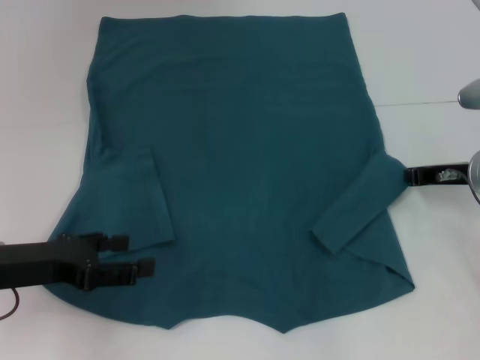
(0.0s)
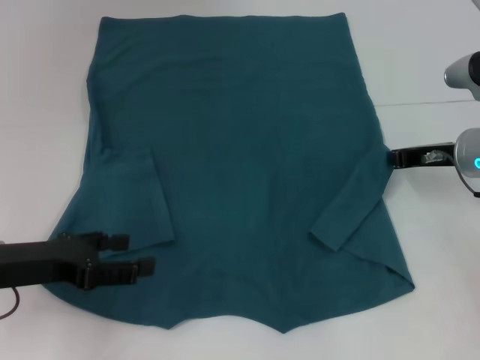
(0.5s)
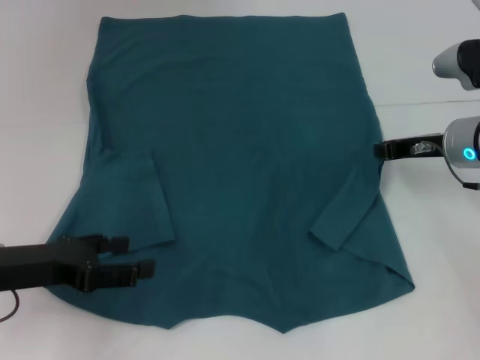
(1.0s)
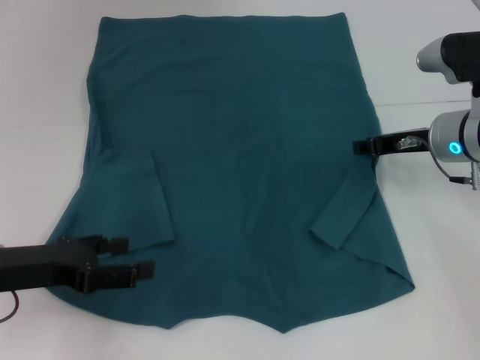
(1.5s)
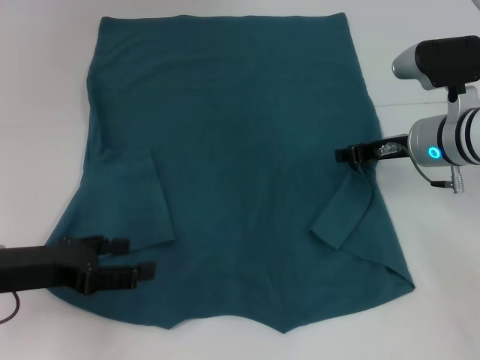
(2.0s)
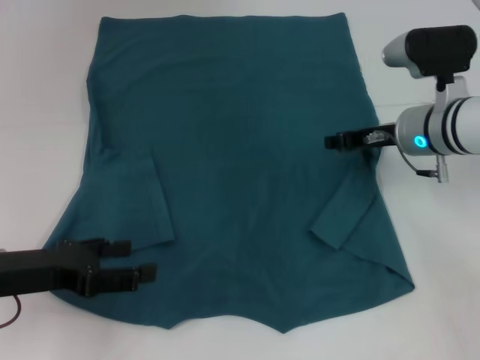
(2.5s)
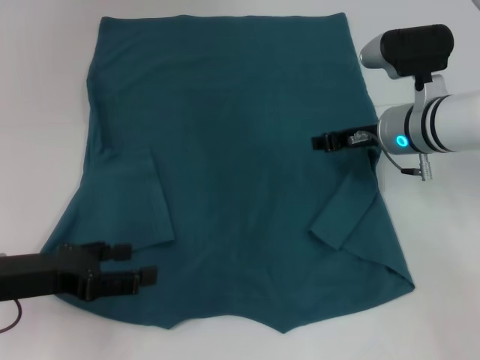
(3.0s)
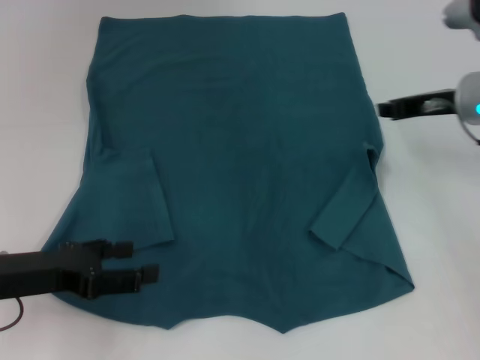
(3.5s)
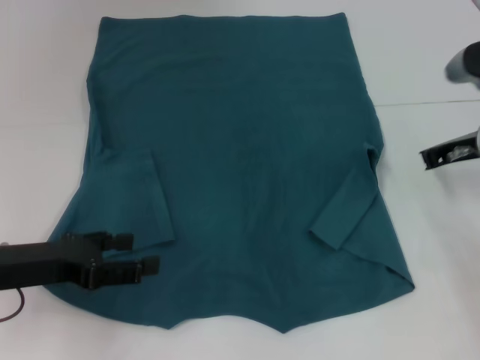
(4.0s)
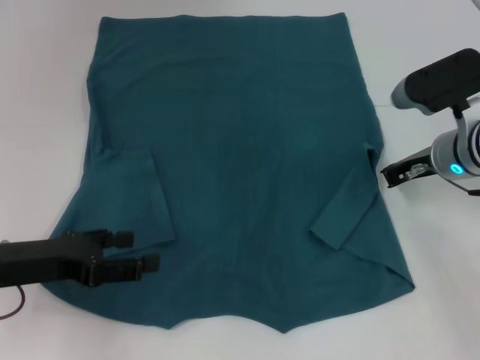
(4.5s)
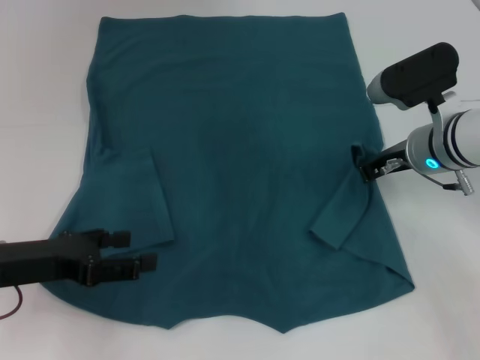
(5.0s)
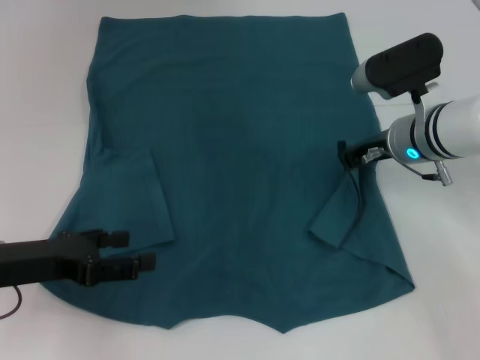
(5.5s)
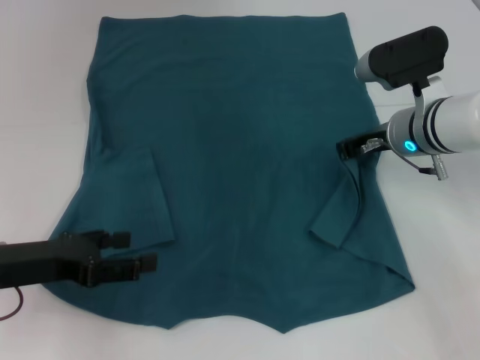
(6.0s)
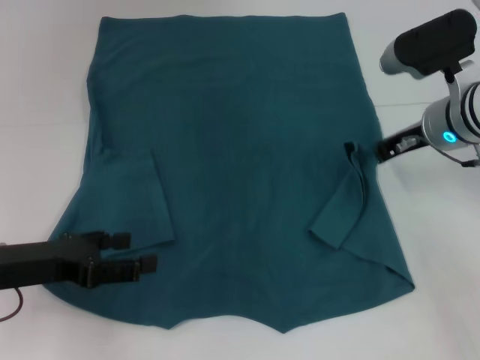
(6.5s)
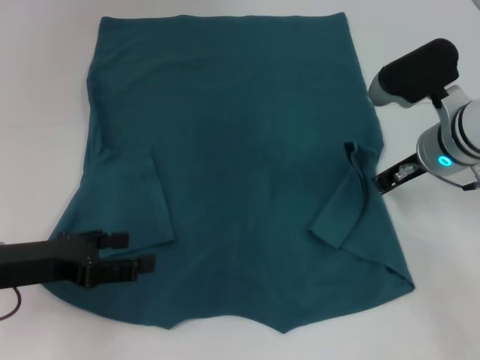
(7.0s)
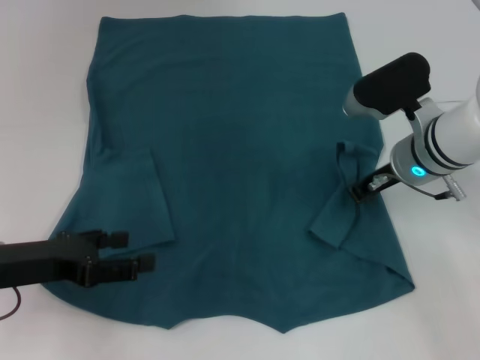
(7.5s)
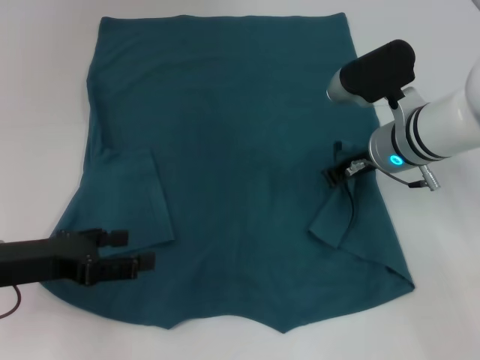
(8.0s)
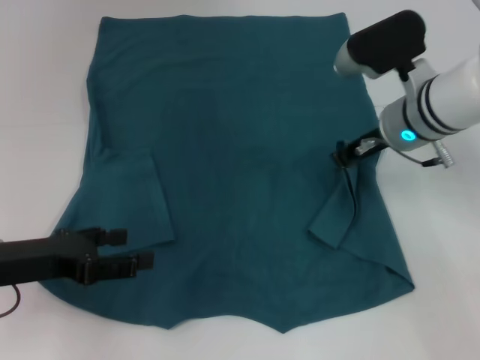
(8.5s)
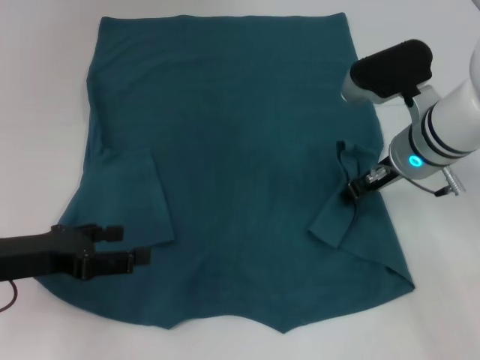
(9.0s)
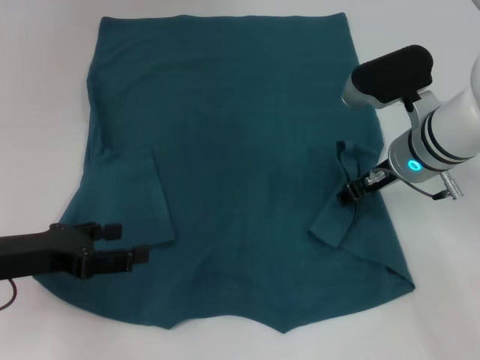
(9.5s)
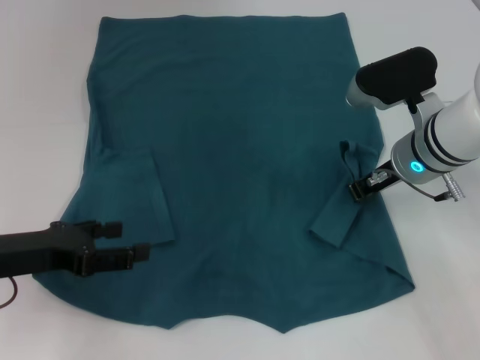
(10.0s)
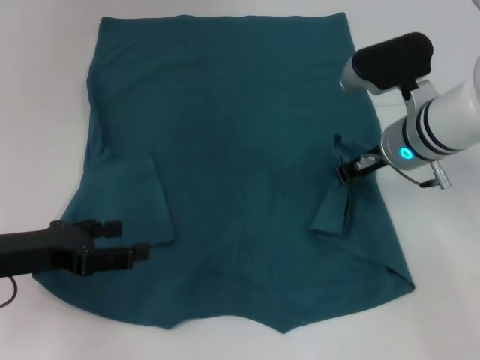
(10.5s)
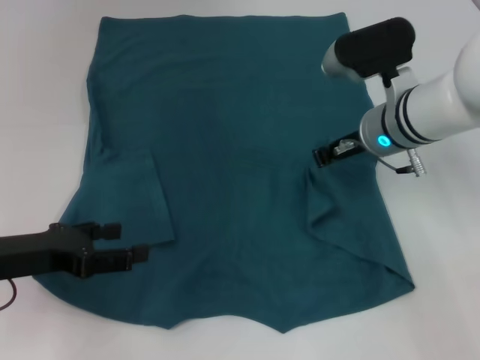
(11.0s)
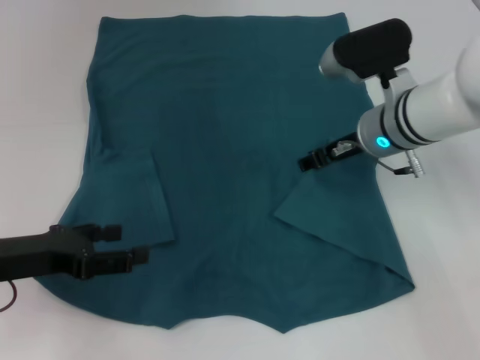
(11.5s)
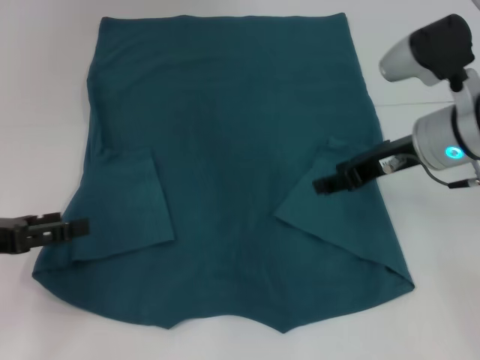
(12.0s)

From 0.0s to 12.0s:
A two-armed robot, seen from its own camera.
Step, from 0.0s to 11.5s: Fold the bottom right sleeve to the right.
From 0.0s to 2.0s: The right gripper is displaced to the left by about 5 cm, and opens.
From 2.0s to 4.0s: The right gripper is displaced to the right by approximately 5 cm.
From 4.0s to 6.0s: The right gripper goes about 10 cm to the left.
From 6.0s to 8.0s: There are only small adjustments of the grippers.
From 8.0s to 10.0s: The right gripper opens and closes again.
From 10.0s to 12.0s: The right gripper ends up about 5 cm from where it was, and opens, while the left gripper travels to the left by approximately 5 cm.

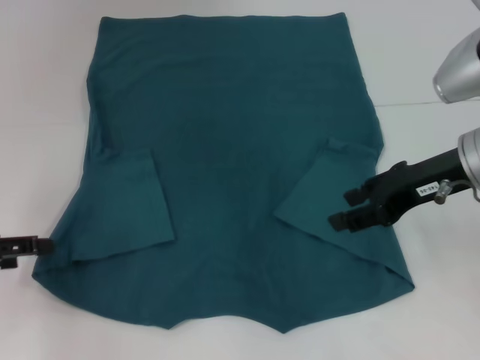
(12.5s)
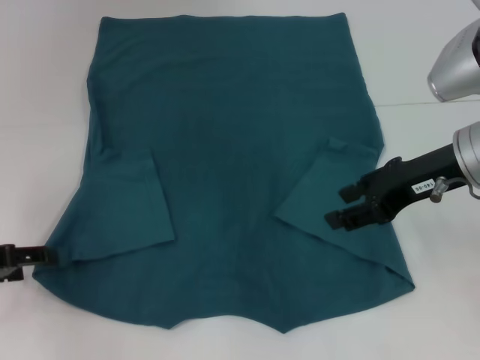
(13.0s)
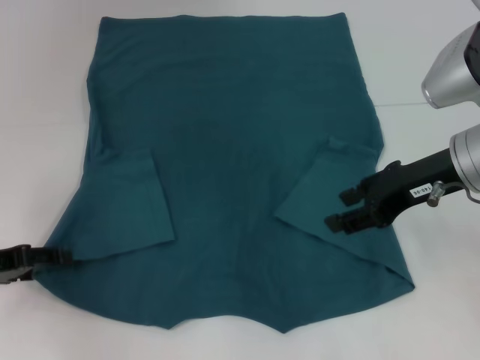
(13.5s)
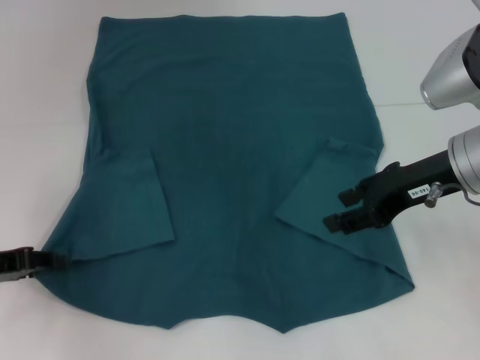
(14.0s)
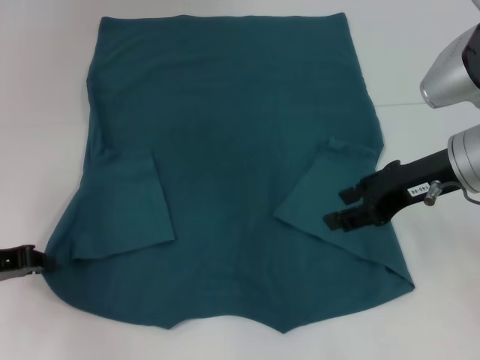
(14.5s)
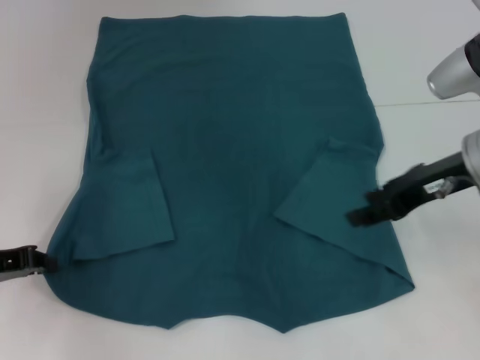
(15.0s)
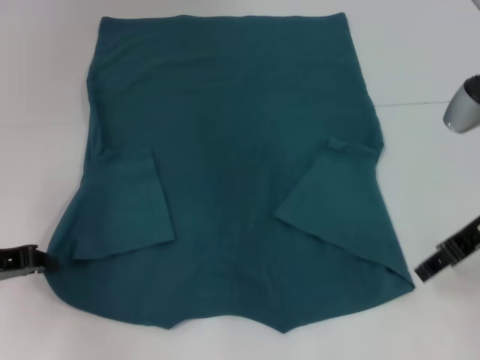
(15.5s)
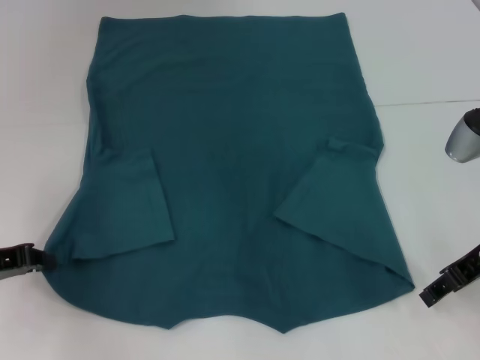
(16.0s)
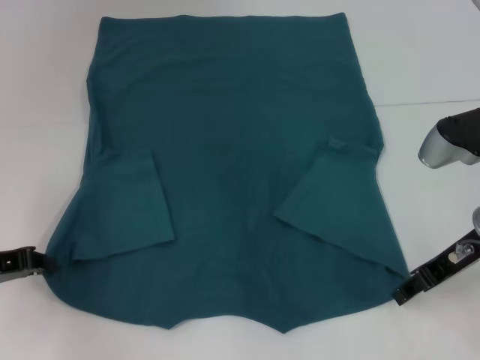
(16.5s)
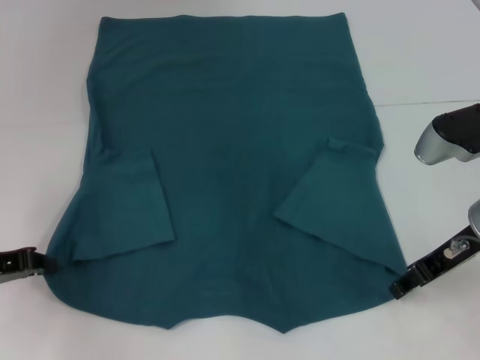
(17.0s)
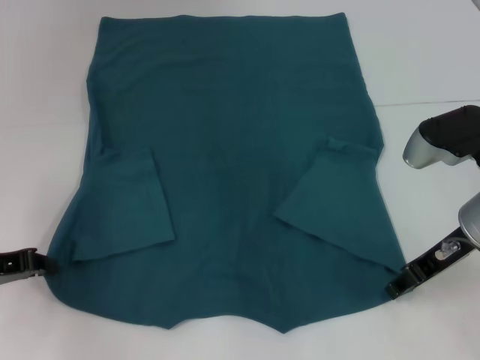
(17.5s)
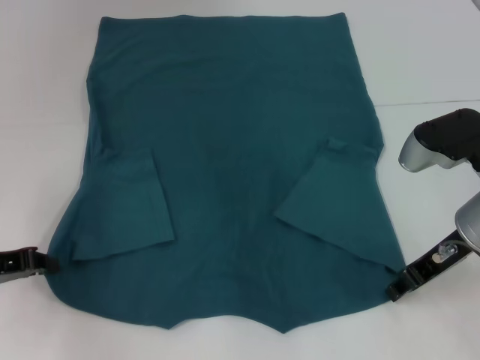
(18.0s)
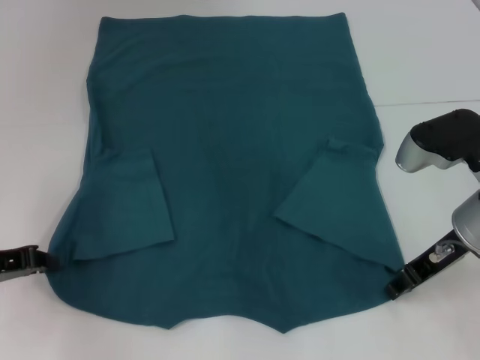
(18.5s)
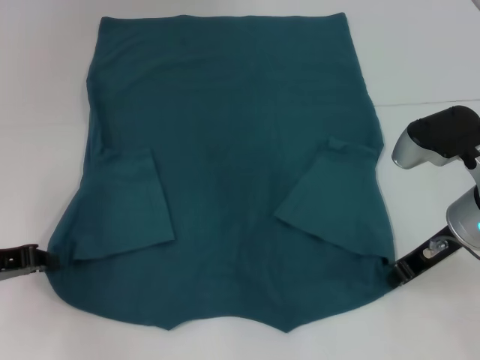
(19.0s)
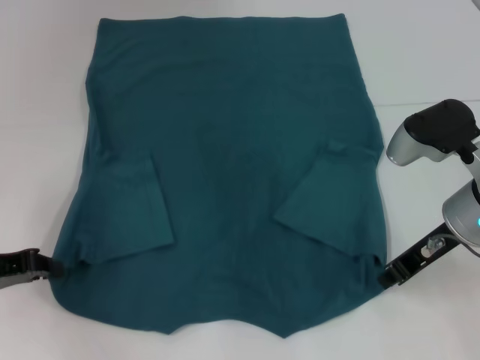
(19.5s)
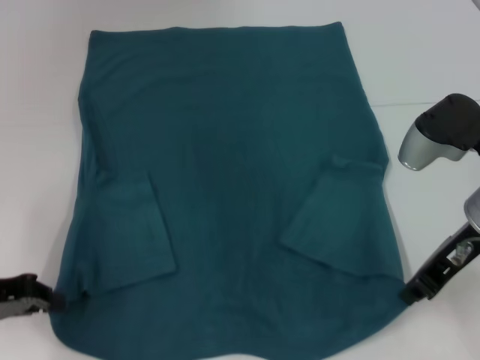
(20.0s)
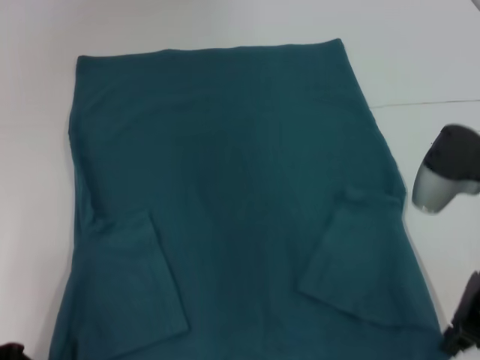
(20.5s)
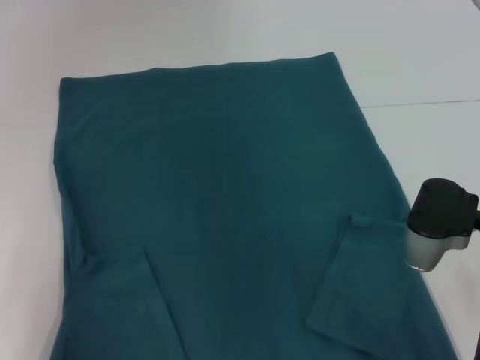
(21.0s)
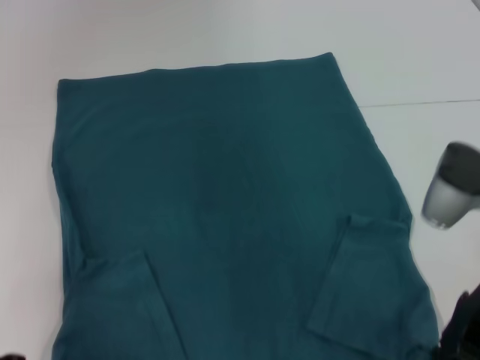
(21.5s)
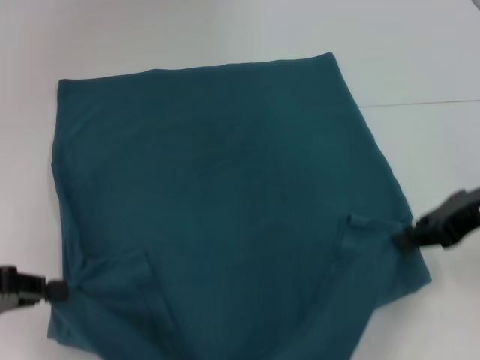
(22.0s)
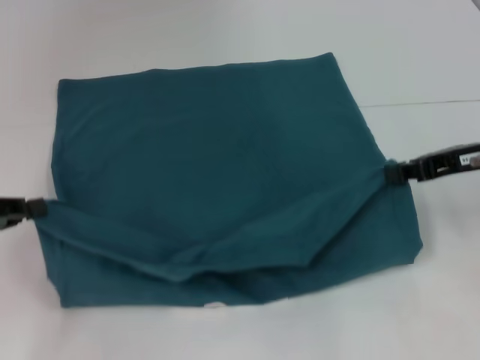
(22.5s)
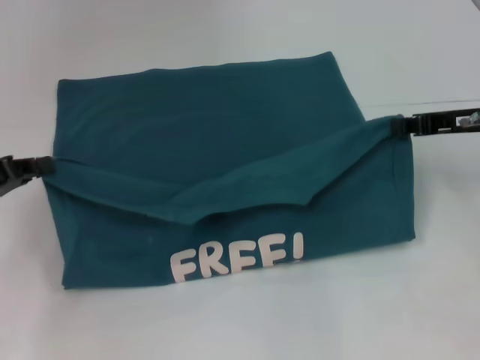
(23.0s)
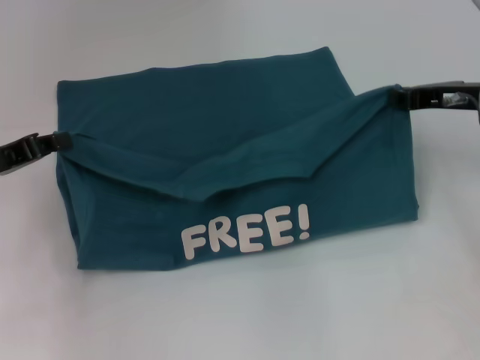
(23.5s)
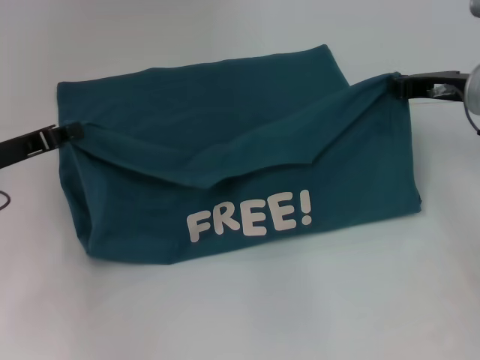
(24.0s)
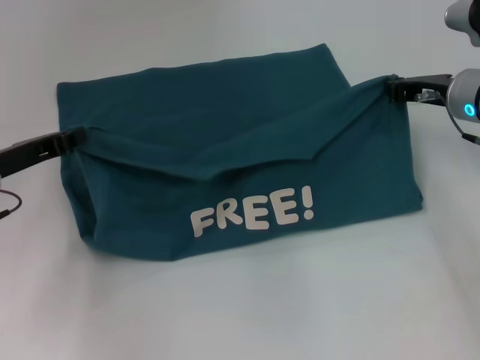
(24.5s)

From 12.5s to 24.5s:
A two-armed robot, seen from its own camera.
Step, from 12.5s to 14.5s: Grab the bottom left corner with your left hand.
Step, from 15.0s to 19.0s: Grab the bottom right corner with your right hand.
From 12.5s to 14.5s: The left gripper closes its fingers.
From 14.5s to 16.5s: The right gripper ends up approximately 5 cm from where it was.
From 16.5s to 18.5s: The grippers make only small movements.
From 18.5s to 20.5s: The right gripper shifts by some 5 cm, and closes up, while the left gripper heads backward, covering some 5 cm.
From 20.5s to 22.5s: The right gripper heads to the right, covering some 5 cm. Meanwhile the left gripper changes place by some 5 cm.
From 22.5s to 24.5s: The left gripper moves forward and to the right, about 10 cm. The right gripper heads forward, covering roughly 10 cm.

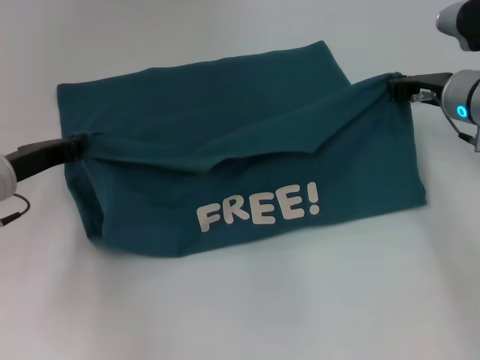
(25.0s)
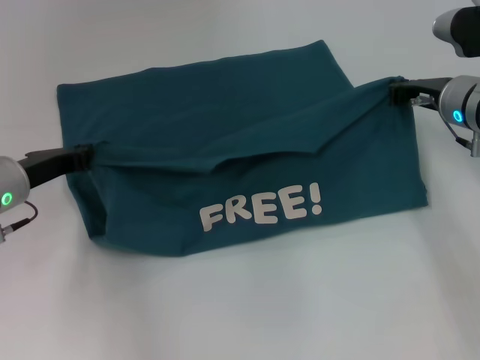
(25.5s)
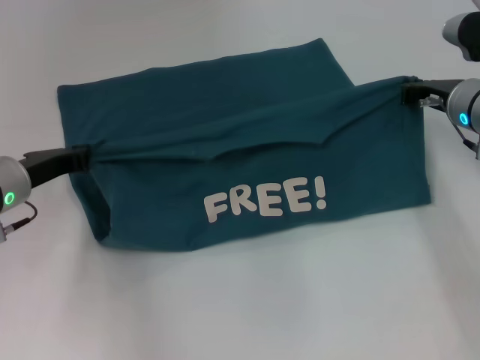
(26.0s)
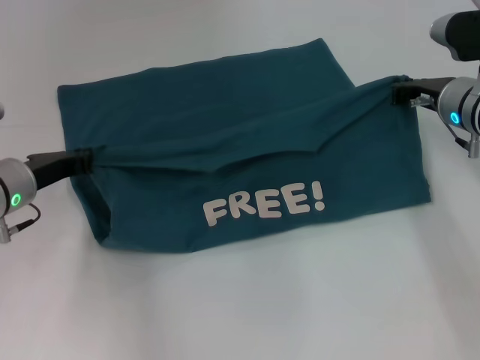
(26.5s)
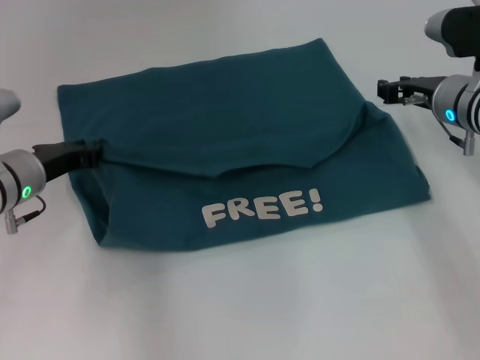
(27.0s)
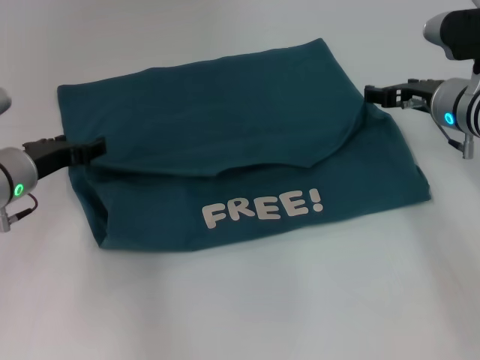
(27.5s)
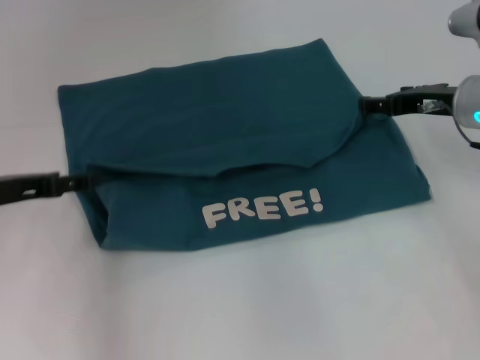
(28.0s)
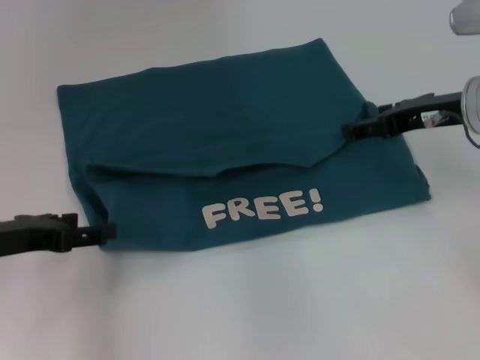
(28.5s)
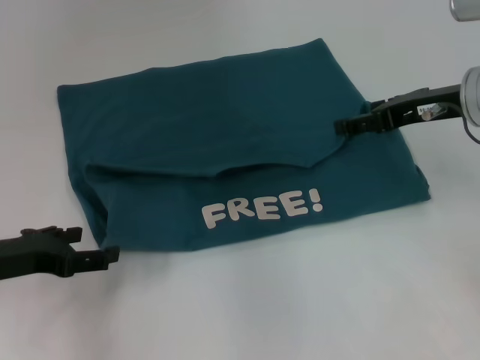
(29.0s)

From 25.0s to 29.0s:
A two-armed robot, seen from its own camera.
Step, from 25.0s to 27.0s: Fold the clothes to the left.
Step, from 25.0s to 27.0s: Fold the clothes to the right.
From 25.0s to 27.0s: There are only small adjustments of the grippers.
From 27.0s to 29.0s: The left gripper travels backward by about 10 cm, and opens its fingers. The right gripper travels upward and backward by approximately 10 cm, and opens its fingers.
